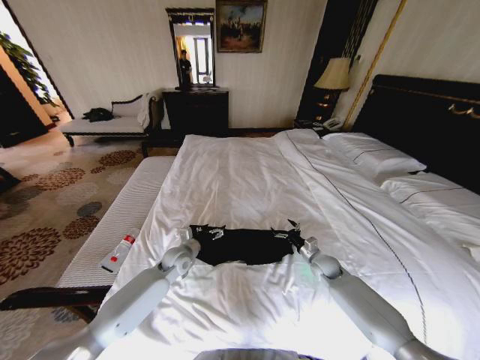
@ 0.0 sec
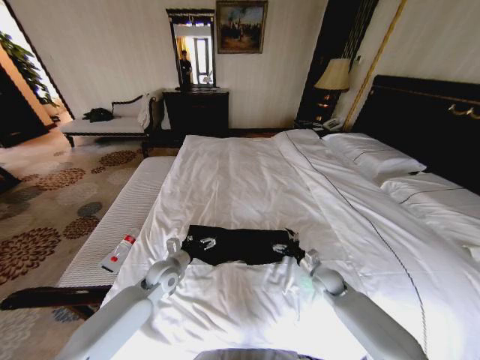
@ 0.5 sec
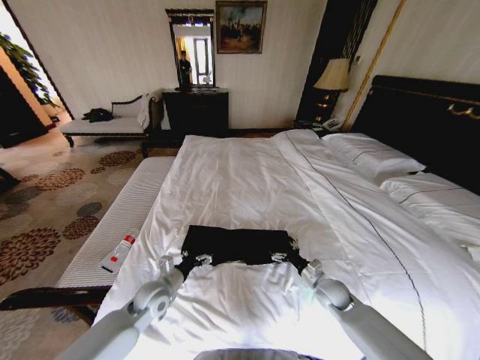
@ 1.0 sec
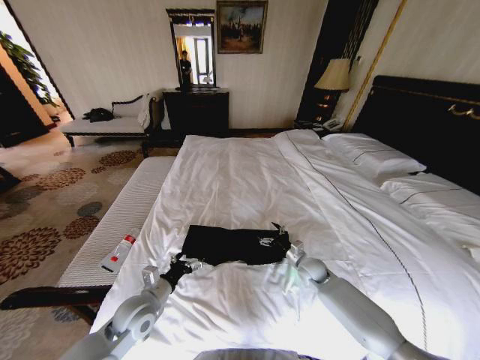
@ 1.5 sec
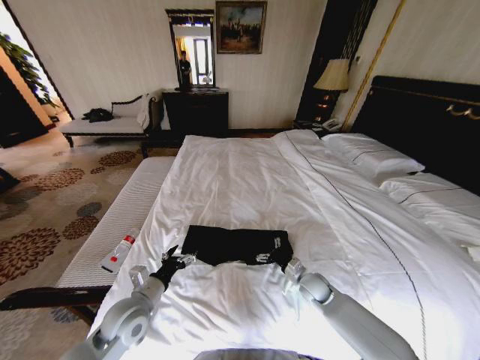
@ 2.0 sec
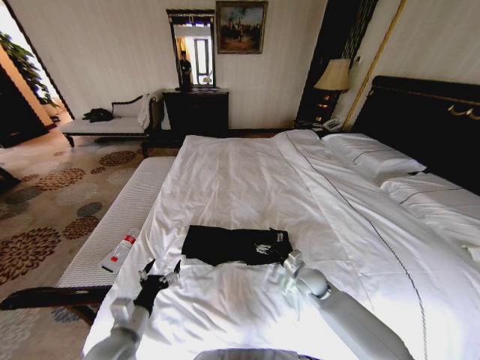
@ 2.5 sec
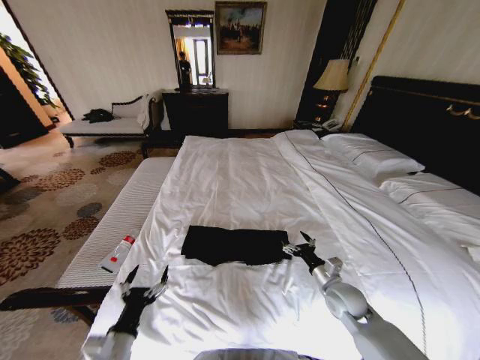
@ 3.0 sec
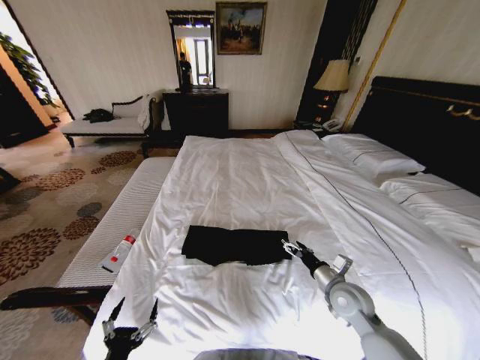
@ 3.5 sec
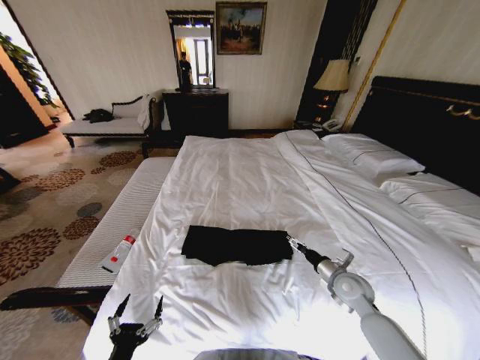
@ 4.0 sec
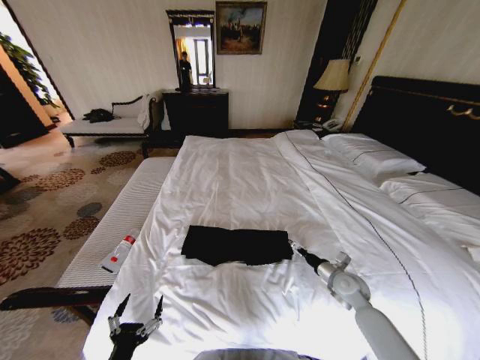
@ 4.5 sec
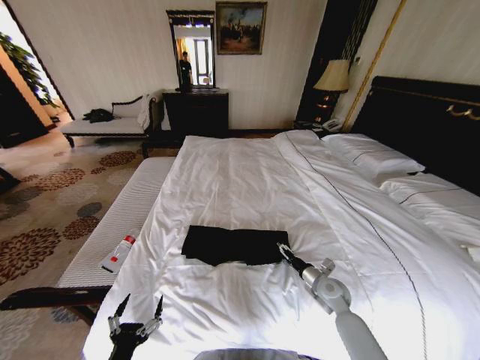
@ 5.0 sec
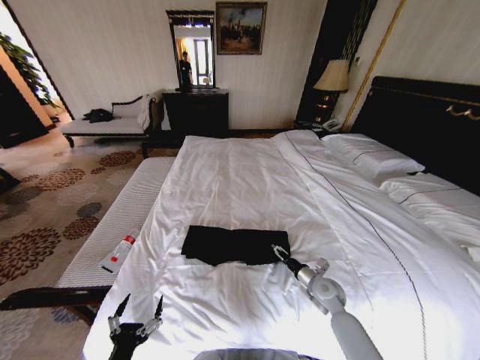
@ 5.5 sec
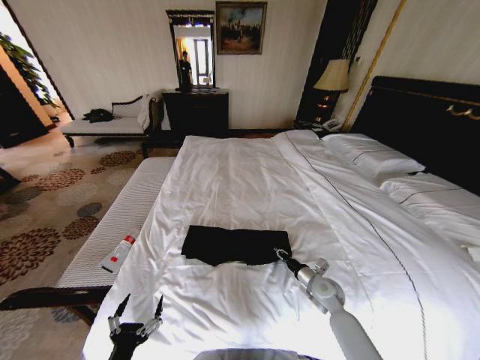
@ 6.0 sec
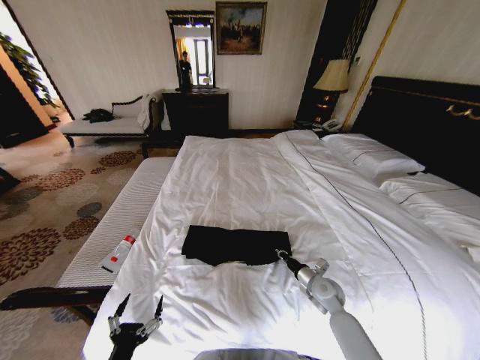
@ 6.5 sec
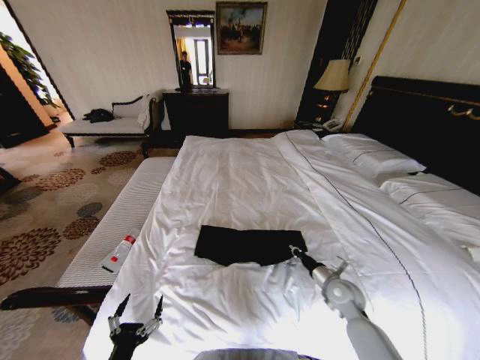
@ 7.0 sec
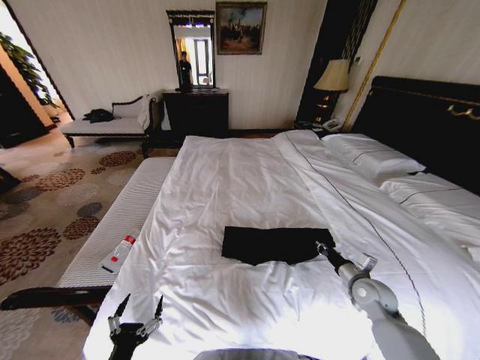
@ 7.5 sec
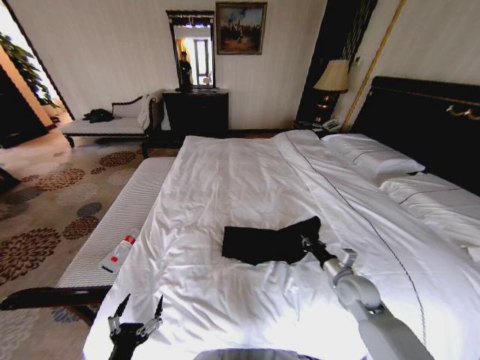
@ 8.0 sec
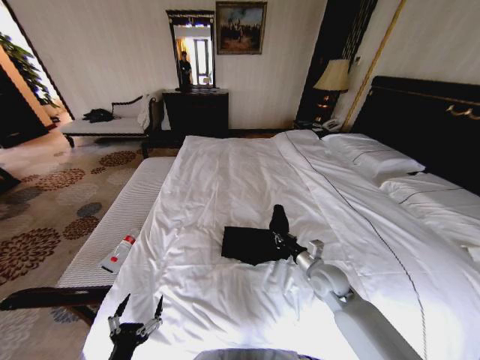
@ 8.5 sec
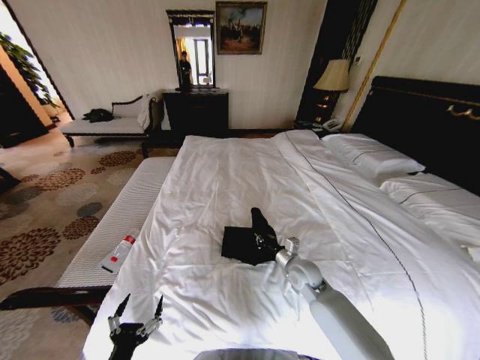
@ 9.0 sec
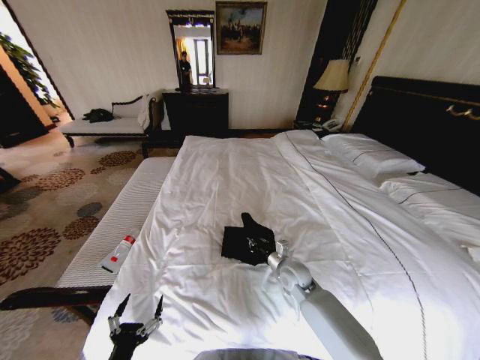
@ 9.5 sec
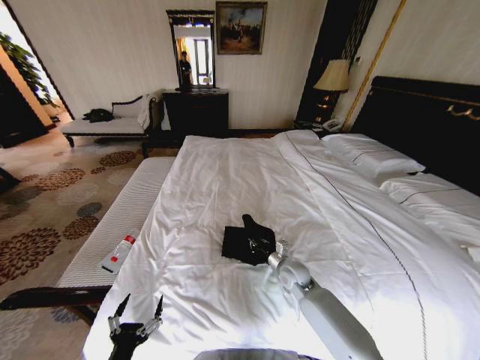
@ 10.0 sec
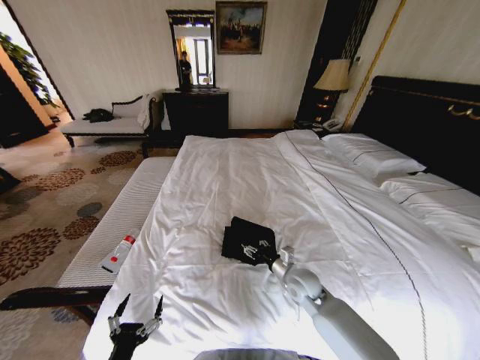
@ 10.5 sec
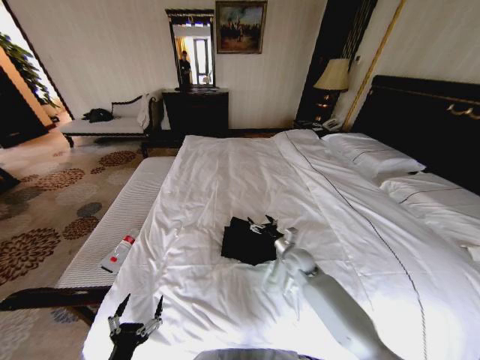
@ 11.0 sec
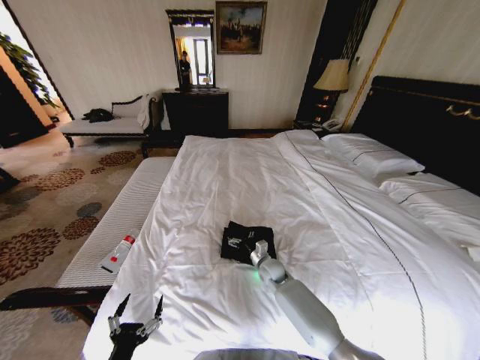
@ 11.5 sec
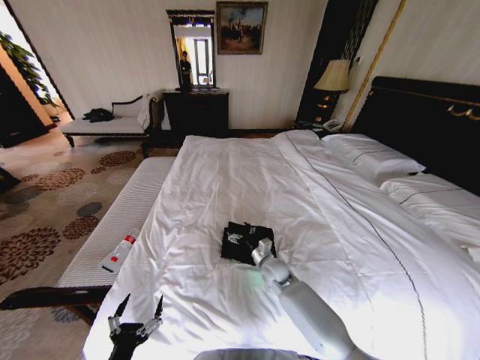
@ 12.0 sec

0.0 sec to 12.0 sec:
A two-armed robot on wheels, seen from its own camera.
Task of the whole recording: Fold the clothes on the bed.
0.0 sec to 2.0 sec: The left gripper moves backward, about 20 cm; the right gripper moves forward and backward over about 10 cm, changing direction 2 times.
2.0 sec to 4.0 sec: The right gripper shifts approximately 10 cm upward and to the right; the left gripper moves backward, about 20 cm.
4.0 sec to 6.0 sec: The right gripper shifts approximately 10 cm downward, and closes its fingers.
6.0 sec to 8.0 sec: The right gripper moves upward, some 10 cm.
8.0 sec to 10.0 sec: The right gripper goes roughly 15 cm to the left and forward.
10.0 sec to 12.0 sec: The right gripper travels to the left by roughly 5 cm, moves roughly 5 cm downward and comes back, and opens up.

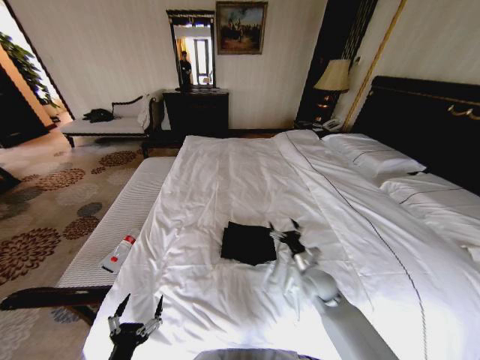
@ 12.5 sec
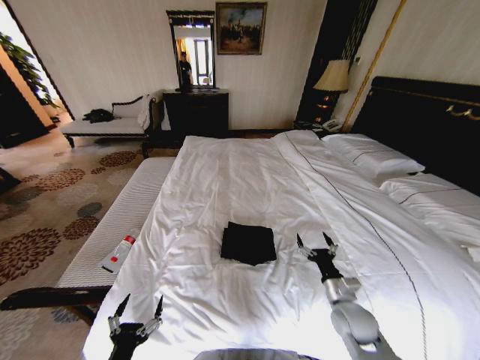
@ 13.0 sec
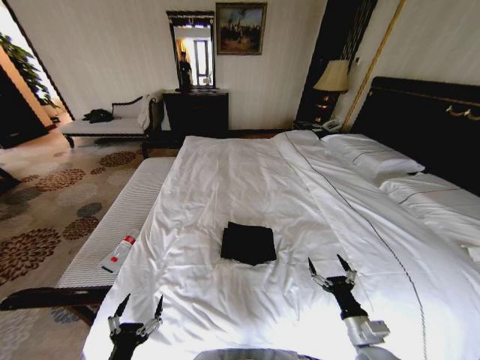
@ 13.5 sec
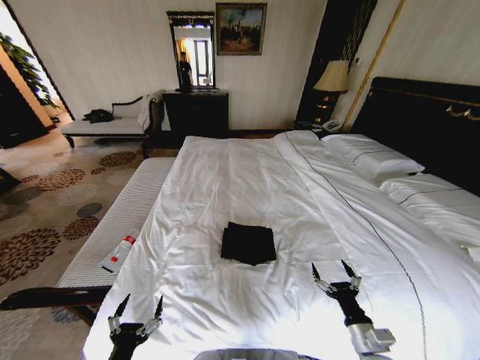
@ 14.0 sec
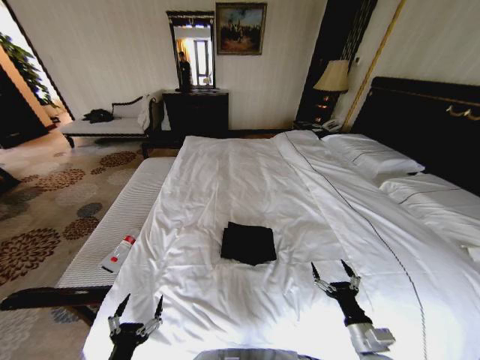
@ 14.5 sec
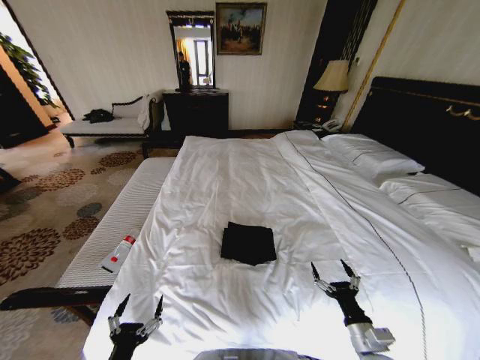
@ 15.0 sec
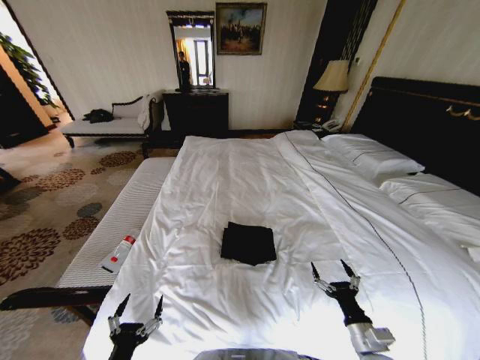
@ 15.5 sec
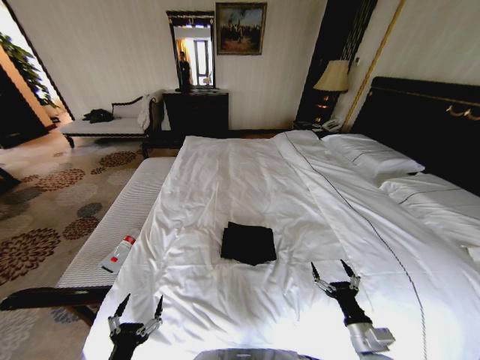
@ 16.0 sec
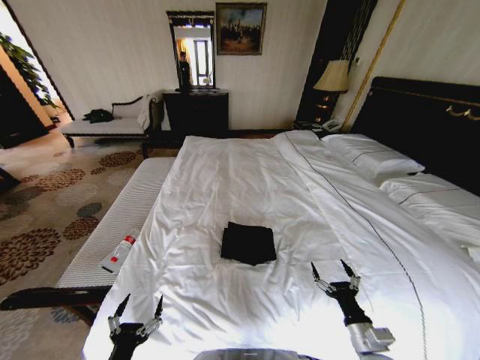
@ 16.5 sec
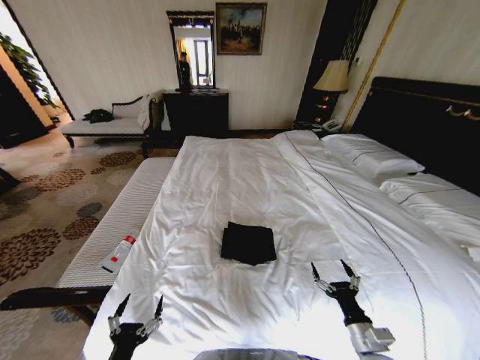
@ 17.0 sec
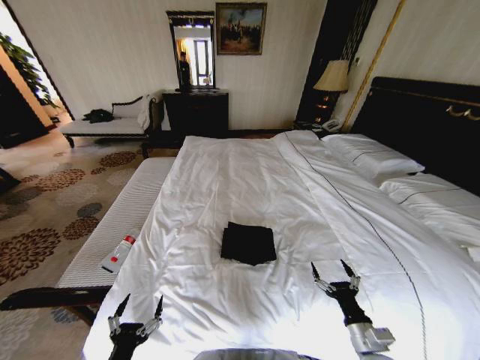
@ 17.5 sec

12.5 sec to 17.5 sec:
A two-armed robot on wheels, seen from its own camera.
Task of the whole recording: Fold the clothes on the bed.
12.5 sec to 15.0 sec: The right gripper moves backward, approximately 20 cm.
15.0 sec to 17.5 sec: Both grippers stay about where they are.
